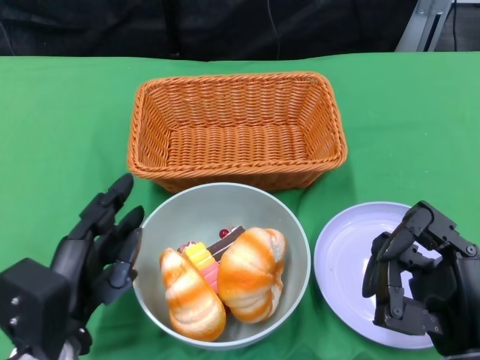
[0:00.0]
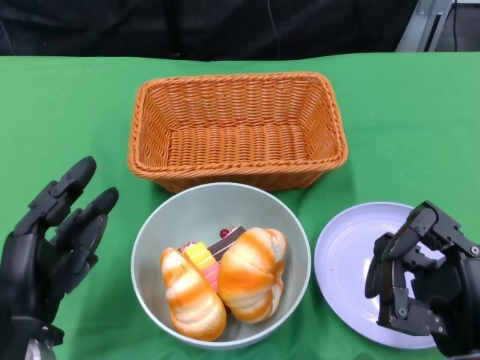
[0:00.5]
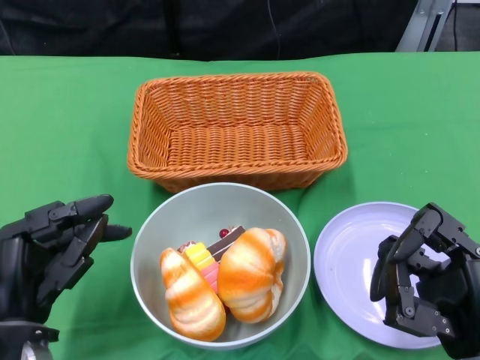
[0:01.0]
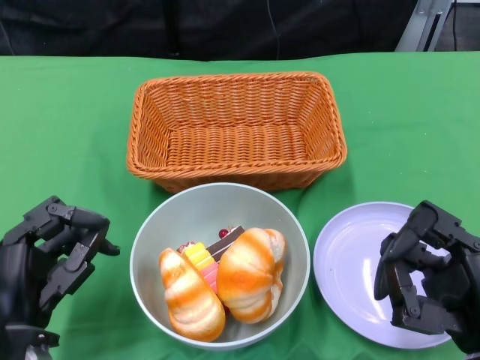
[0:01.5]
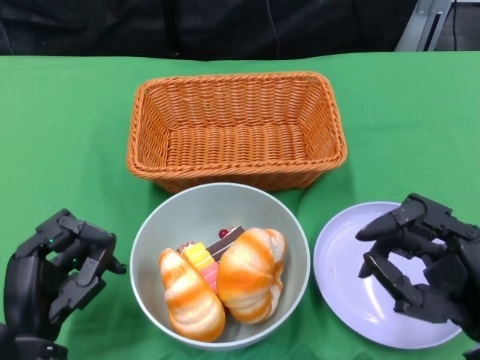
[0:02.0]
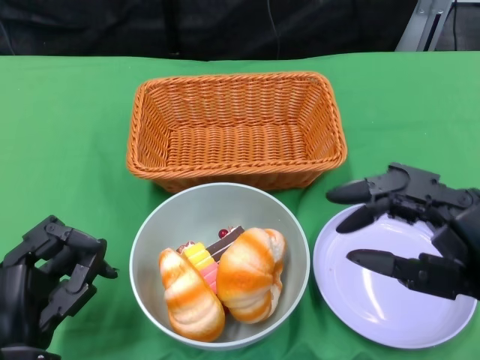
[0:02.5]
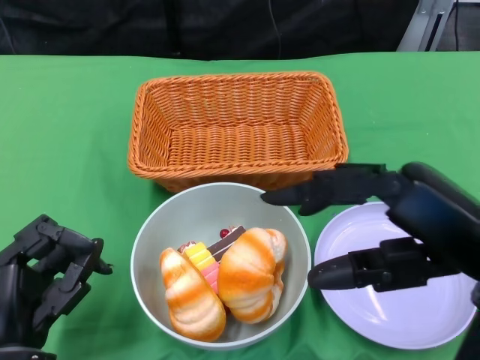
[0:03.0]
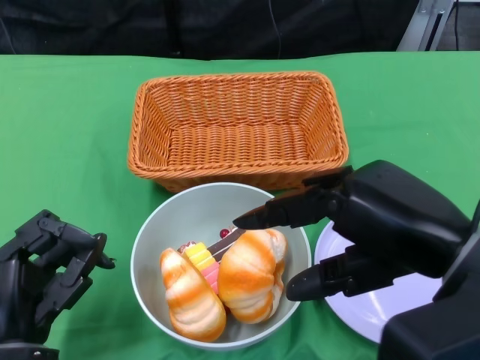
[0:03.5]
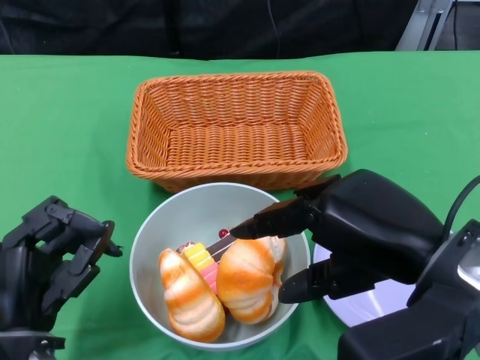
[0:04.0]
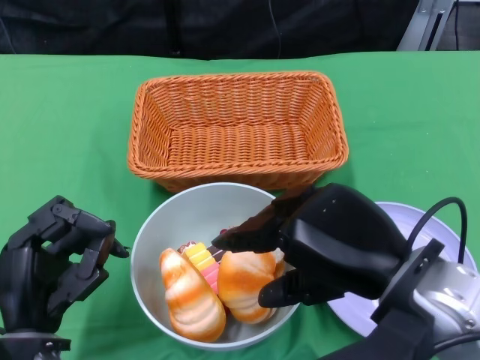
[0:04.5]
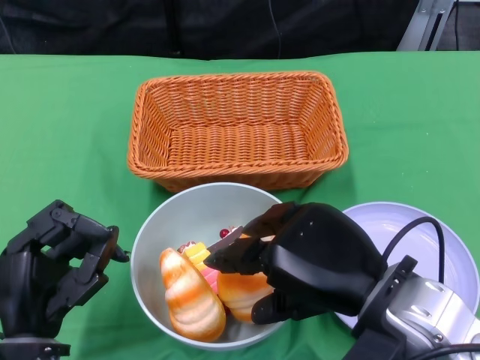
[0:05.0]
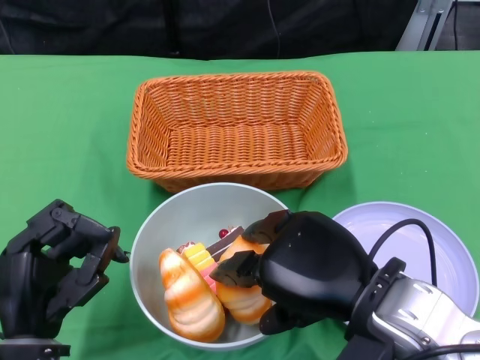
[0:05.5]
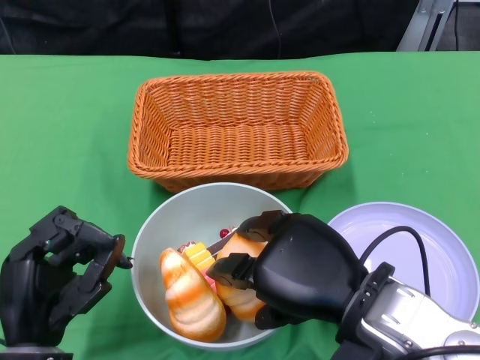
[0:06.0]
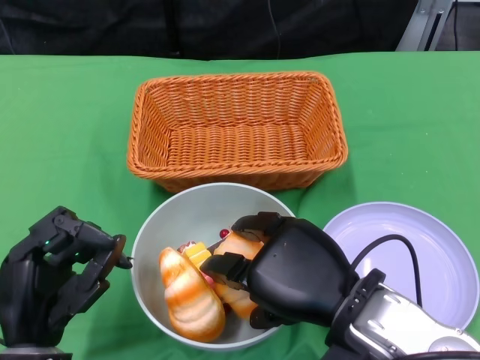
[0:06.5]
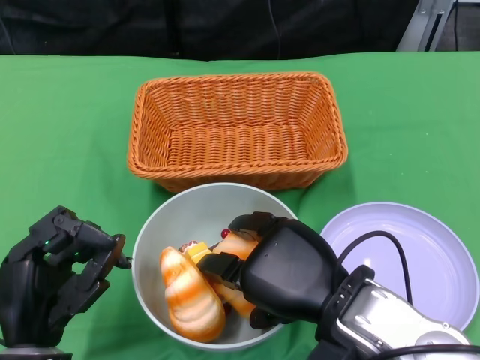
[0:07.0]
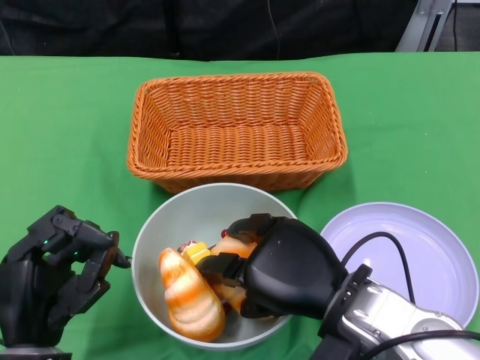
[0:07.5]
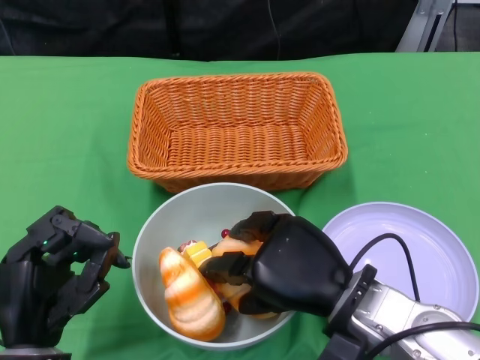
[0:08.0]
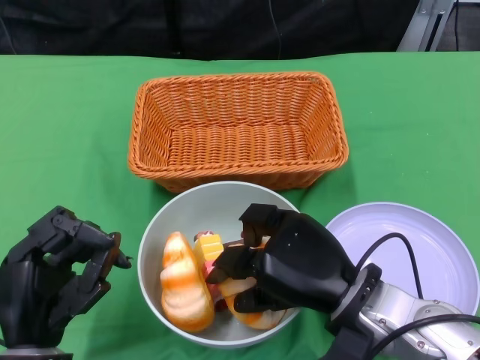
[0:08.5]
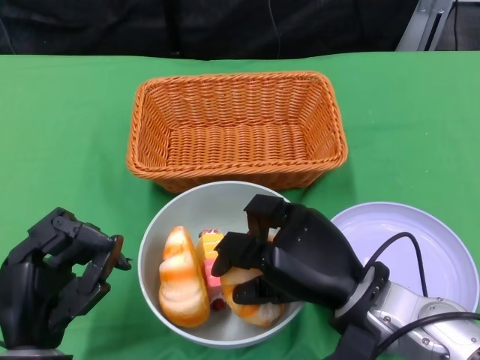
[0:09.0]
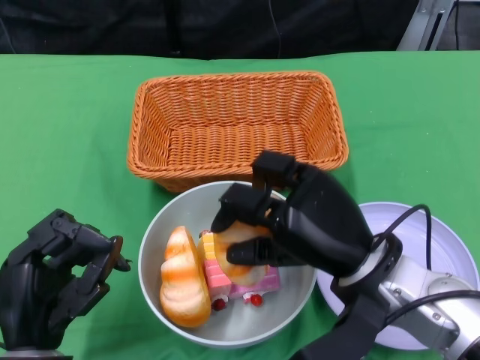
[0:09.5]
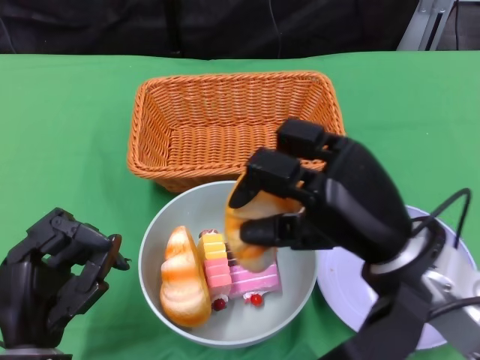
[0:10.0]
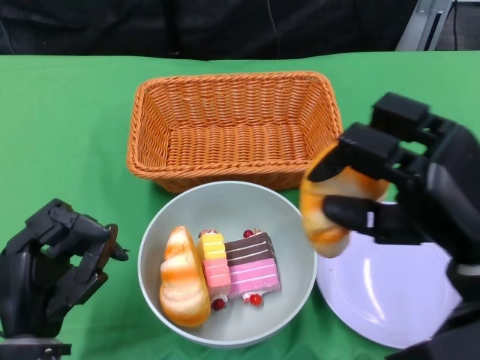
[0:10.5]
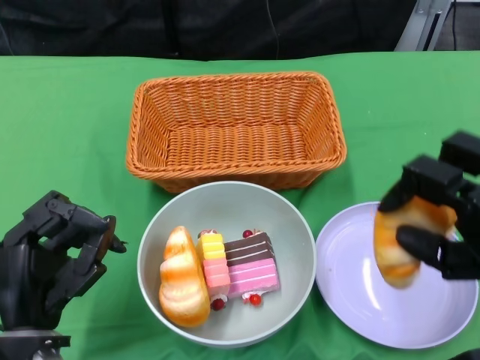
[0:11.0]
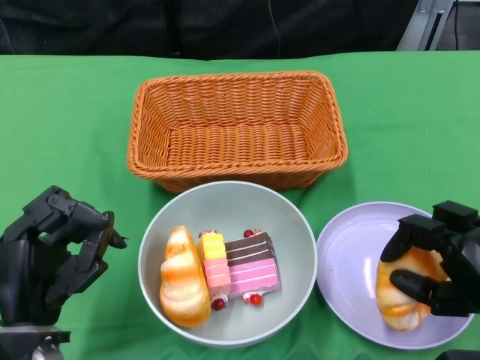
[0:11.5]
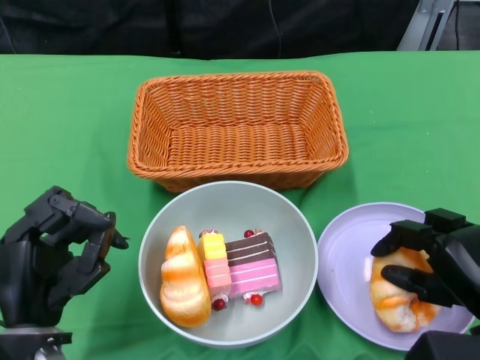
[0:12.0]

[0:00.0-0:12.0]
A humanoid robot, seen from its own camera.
0:02.0 to 0:04.0: The right hand goes approximately 10 cm upward and to the left.
0:04.0 to 0:06.0: The right hand heads downward, covering some 5 cm.
0:06.0 to 0:08.0: The right hand ends up roughly 5 cm from where it was.
0:08.0 to 0:10.0: The right hand heads upward, covering approximately 5 cm.
0:10.0 to 0:12.0: The right hand goes some 15 cm to the right and downward.

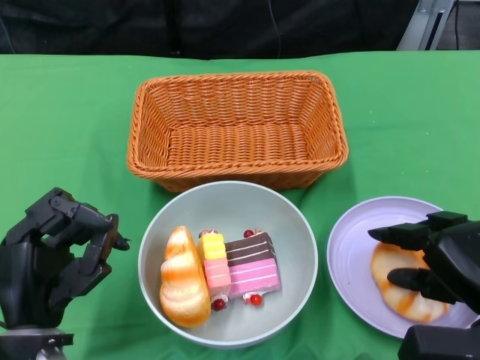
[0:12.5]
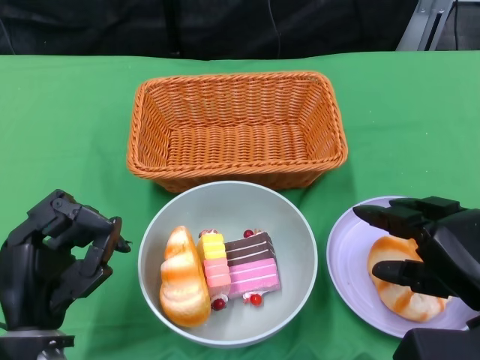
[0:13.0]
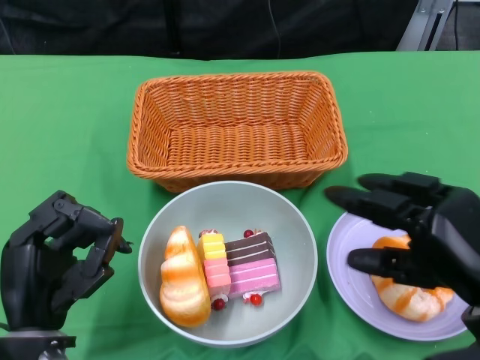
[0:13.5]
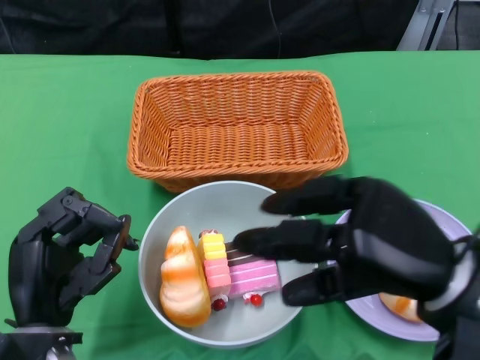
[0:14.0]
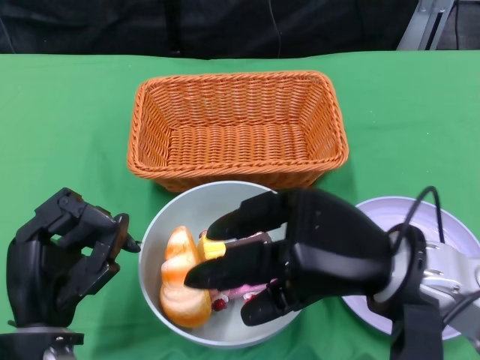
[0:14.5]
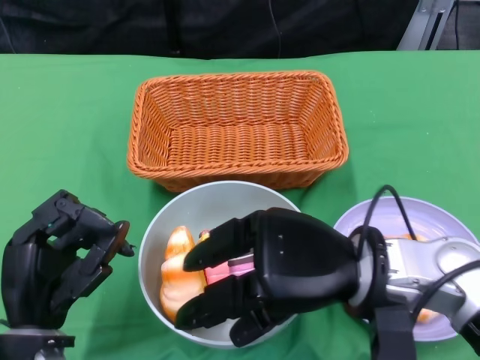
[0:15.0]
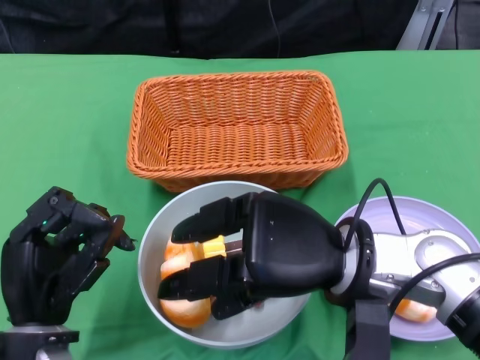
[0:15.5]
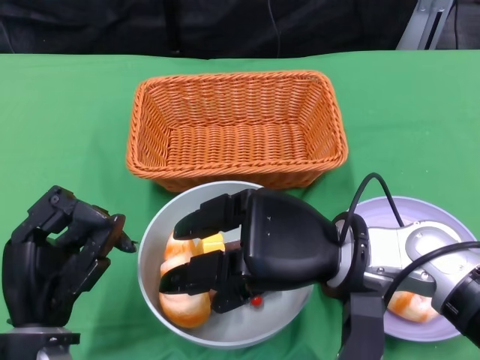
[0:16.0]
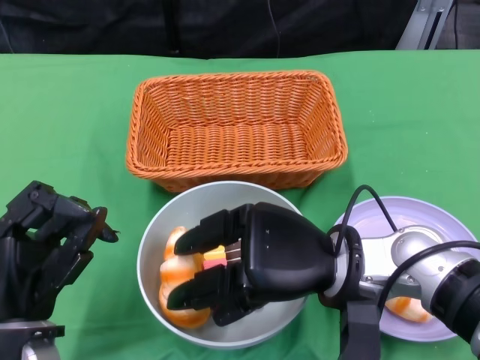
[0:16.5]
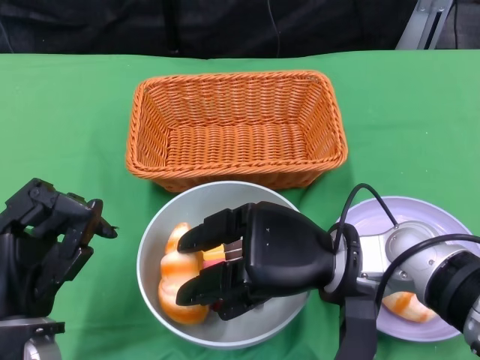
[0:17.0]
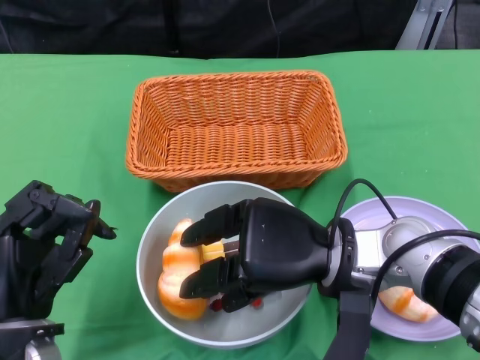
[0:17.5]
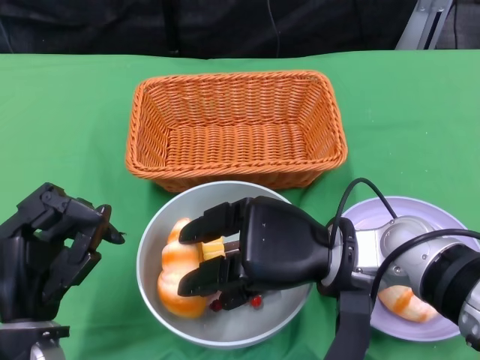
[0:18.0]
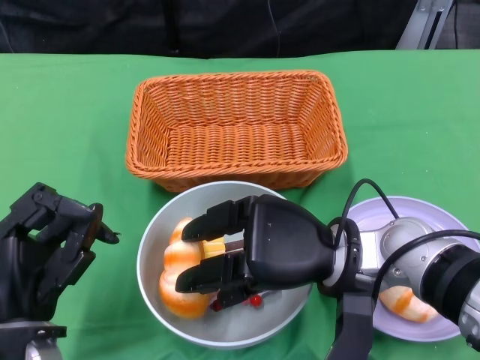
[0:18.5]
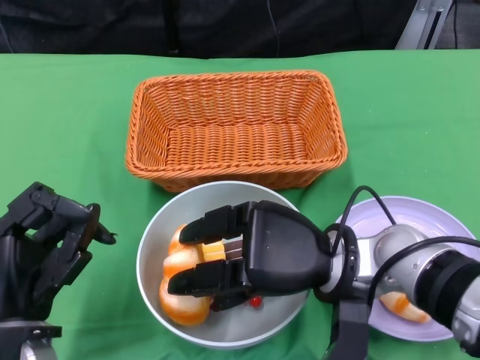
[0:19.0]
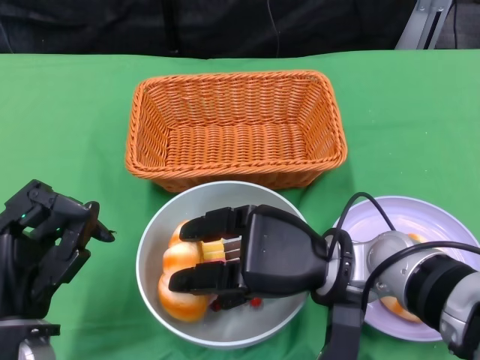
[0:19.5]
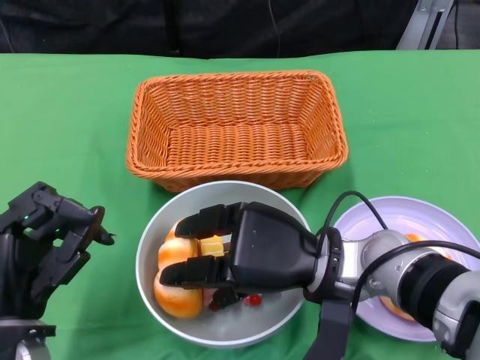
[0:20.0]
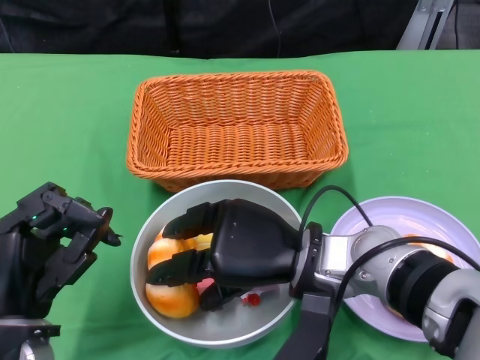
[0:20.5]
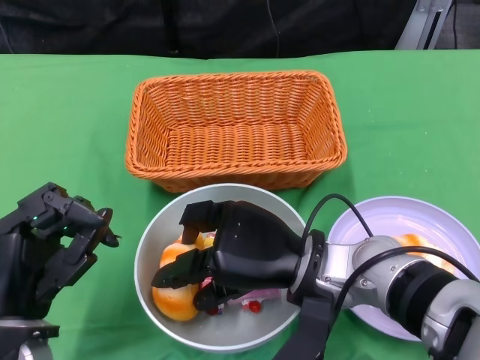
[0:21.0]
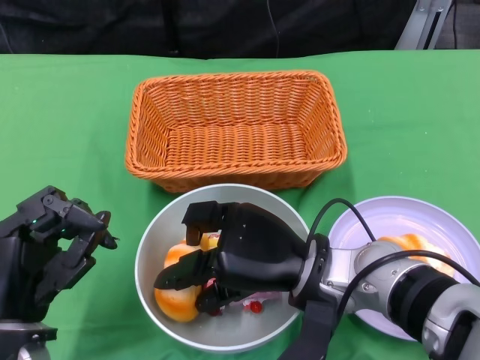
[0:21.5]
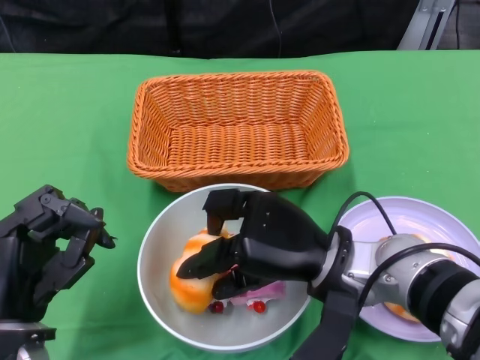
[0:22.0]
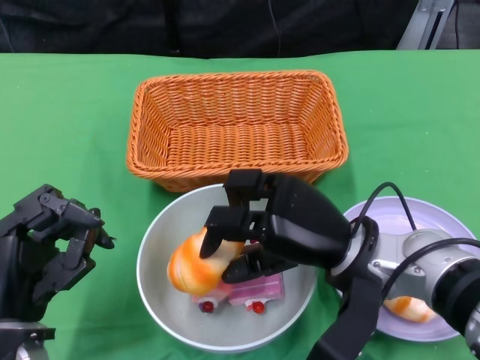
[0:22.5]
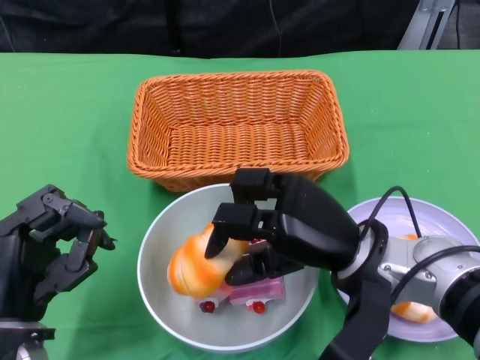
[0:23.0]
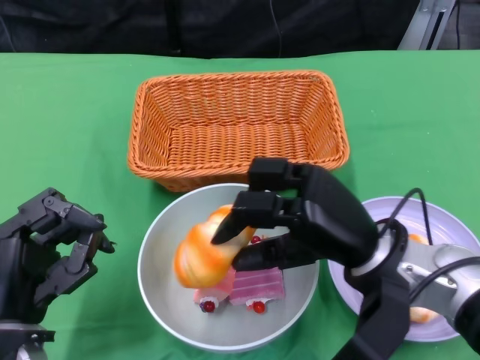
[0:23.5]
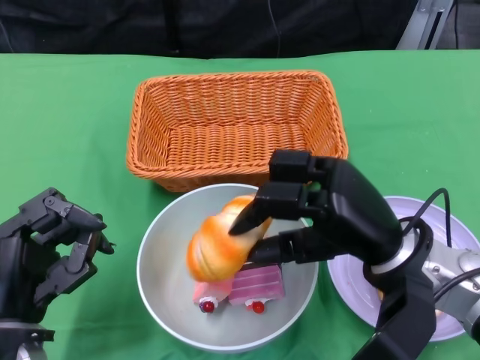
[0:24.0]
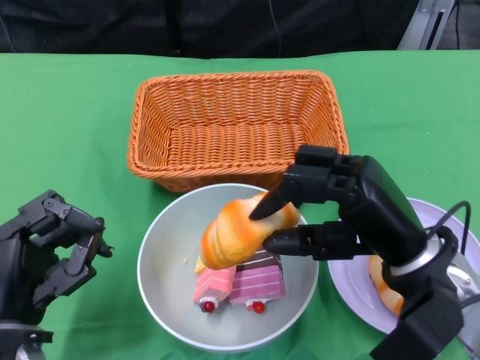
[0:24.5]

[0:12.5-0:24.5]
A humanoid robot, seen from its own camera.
0:12.5 to 0:14.5: The right hand heads to the left and upward, covering approximately 15 cm.
0:14.5 to 0:16.5: The right hand shifts by roughly 5 cm.
0:16.5 to 0:18.5: There are only small adjustments of the hands.
0:22.5 to 0:24.5: The right hand travels to the right by about 5 cm.

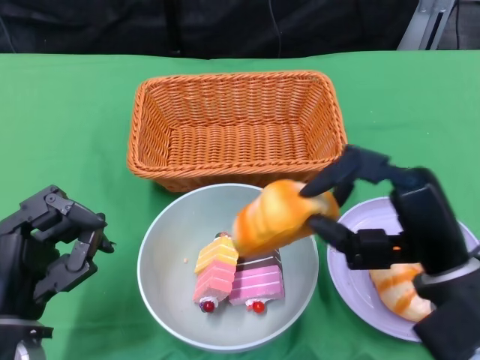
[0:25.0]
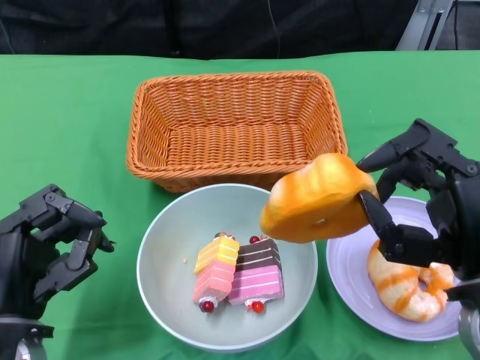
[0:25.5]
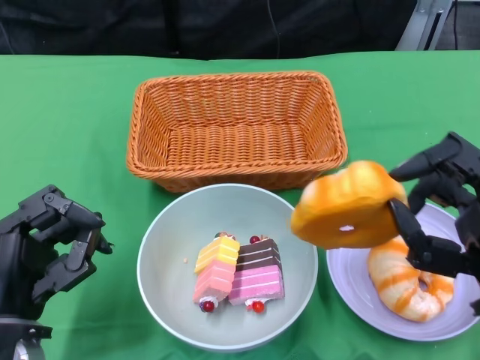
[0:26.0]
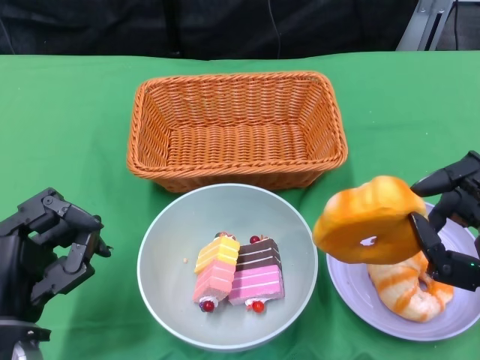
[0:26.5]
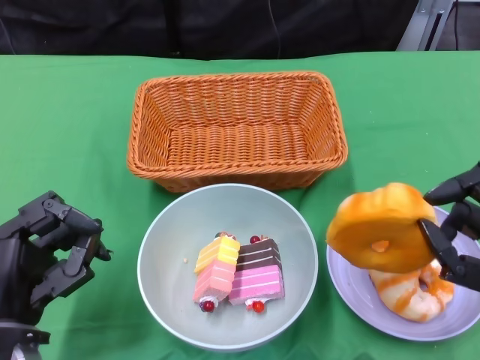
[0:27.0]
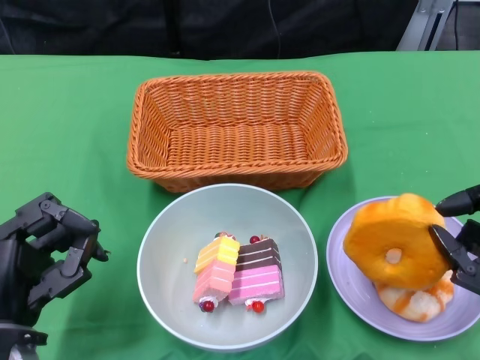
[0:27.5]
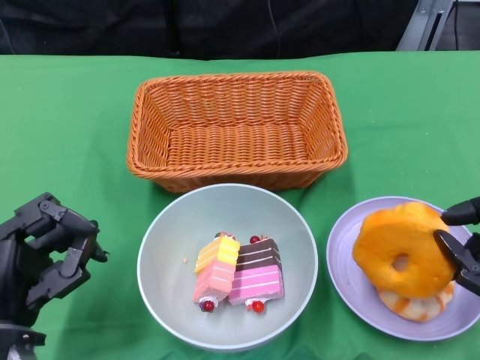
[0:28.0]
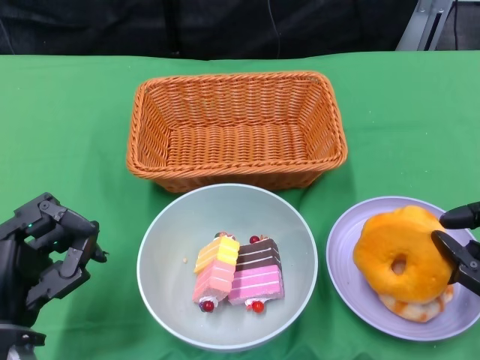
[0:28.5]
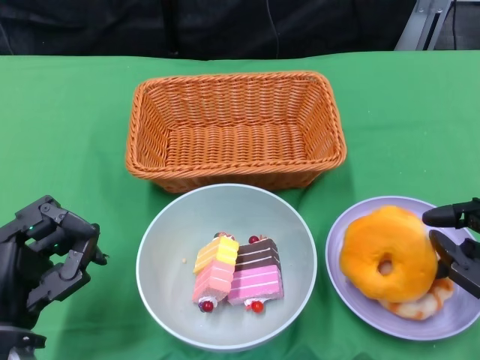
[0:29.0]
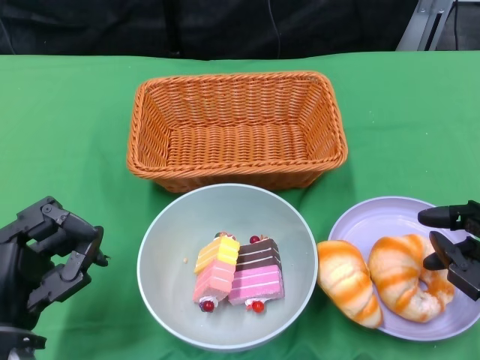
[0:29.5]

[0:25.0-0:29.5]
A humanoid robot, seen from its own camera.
0:25.0 to 0:27.0: The right hand heads to the right, covering roughly 5 cm.
